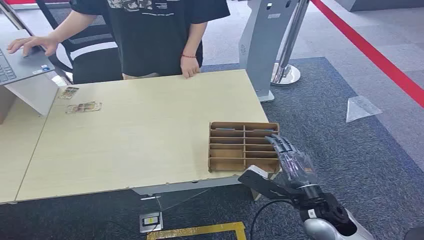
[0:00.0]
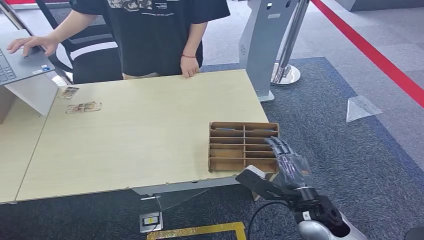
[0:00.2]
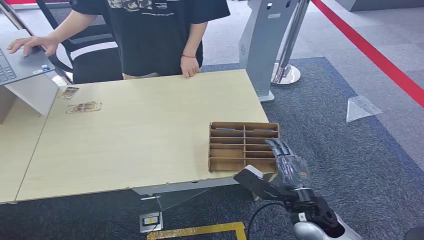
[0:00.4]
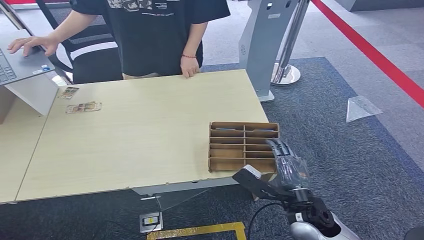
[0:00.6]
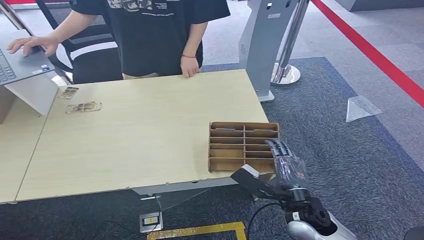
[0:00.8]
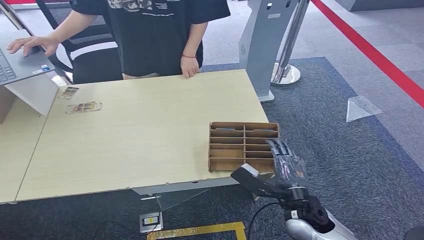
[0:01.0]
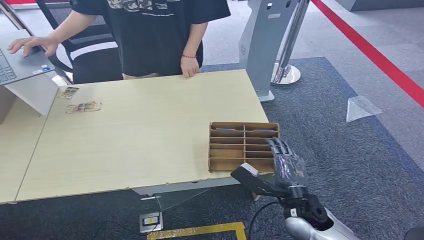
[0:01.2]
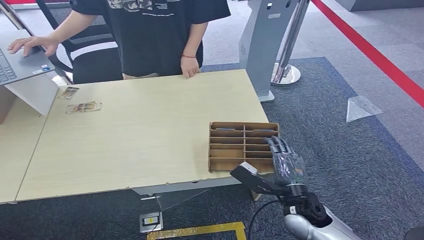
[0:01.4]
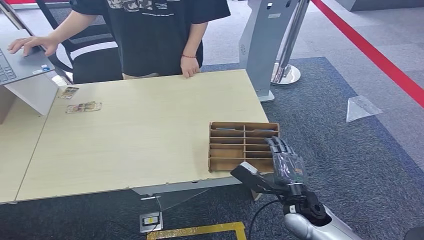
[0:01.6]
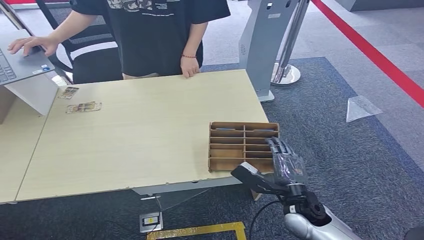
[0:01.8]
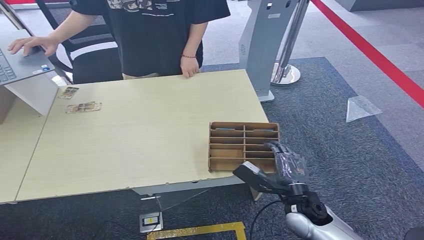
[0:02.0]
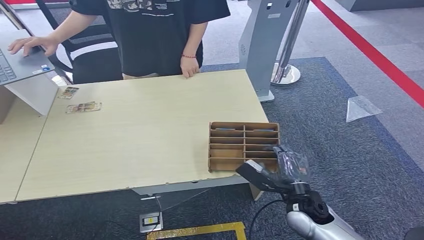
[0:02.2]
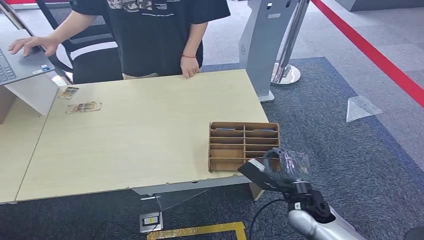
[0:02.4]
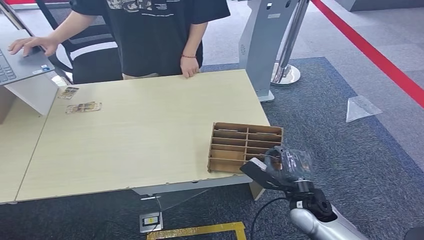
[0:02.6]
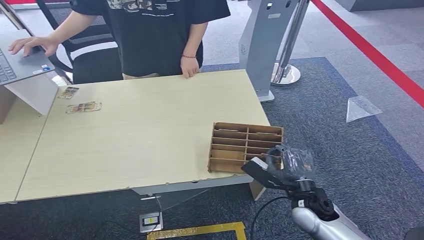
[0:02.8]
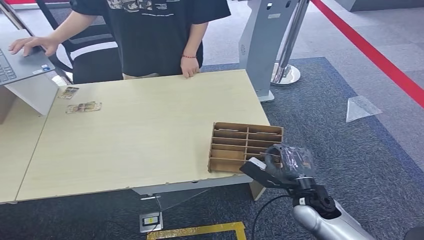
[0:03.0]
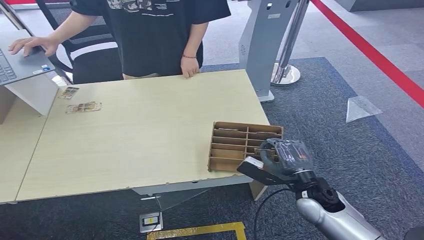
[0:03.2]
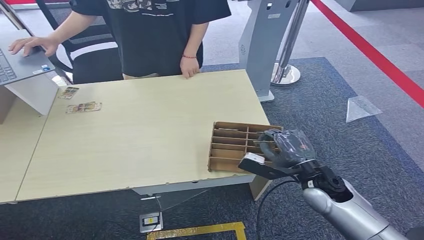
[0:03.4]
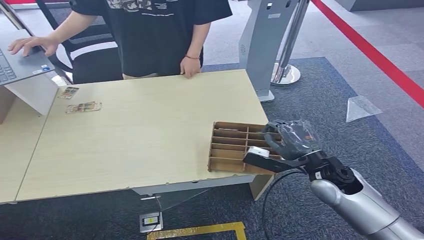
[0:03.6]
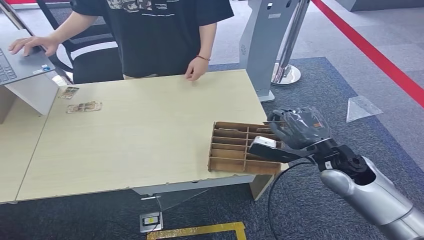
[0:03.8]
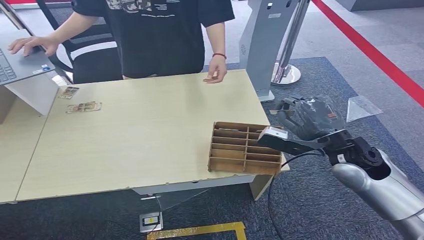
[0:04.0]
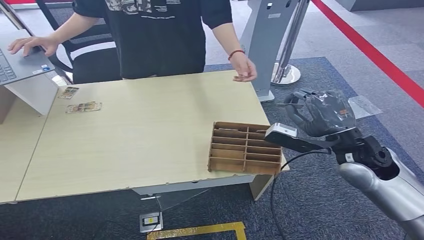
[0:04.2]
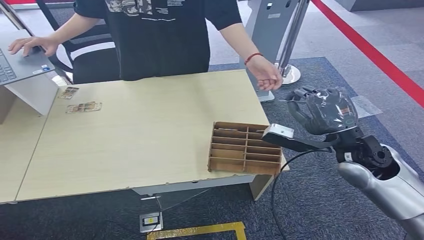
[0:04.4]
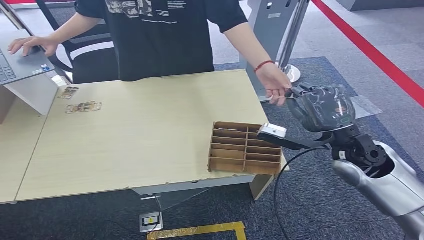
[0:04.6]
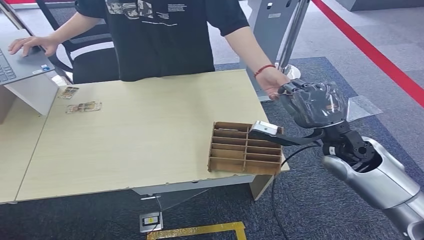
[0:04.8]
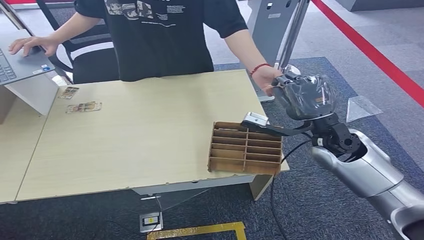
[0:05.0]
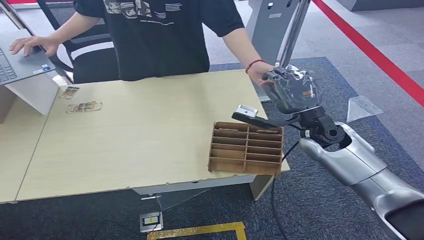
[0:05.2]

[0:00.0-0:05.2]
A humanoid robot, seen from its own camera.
Step, 0:00.0 to 0:03.2: Pick up the room card from the card holder.
Step, 0:03.6 to 0:05.2: Hand the room card to the target.
0:01.8 to 0:03.4: The right hand heads upward, covering approximately 5 cm.
0:03.4 to 0:05.2: The right hand goes some 15 cm upward and forward.
